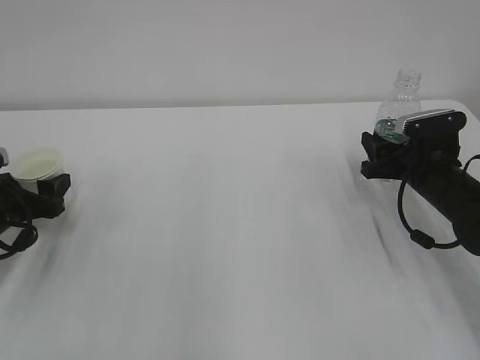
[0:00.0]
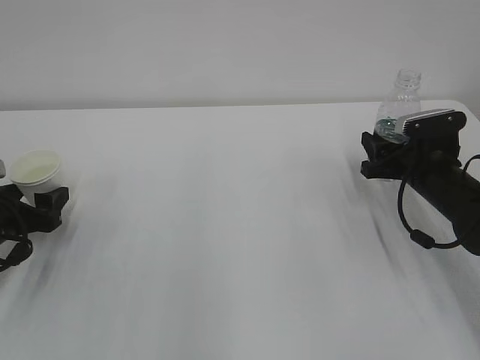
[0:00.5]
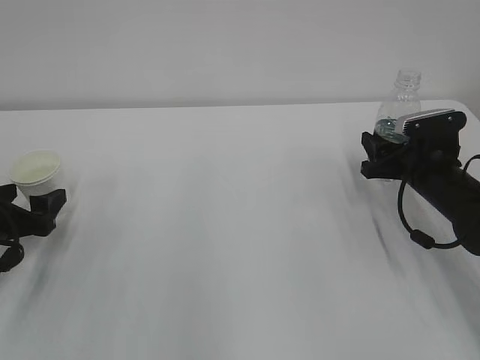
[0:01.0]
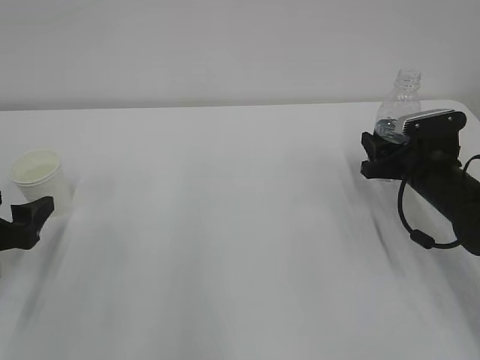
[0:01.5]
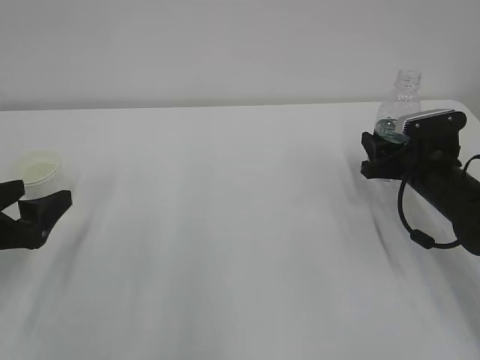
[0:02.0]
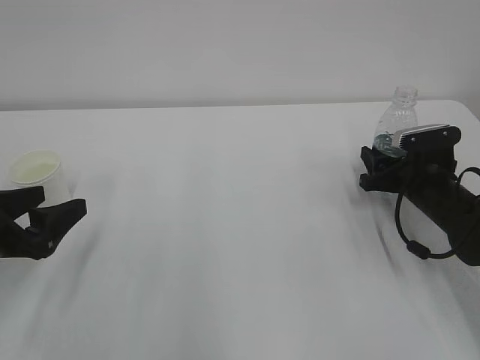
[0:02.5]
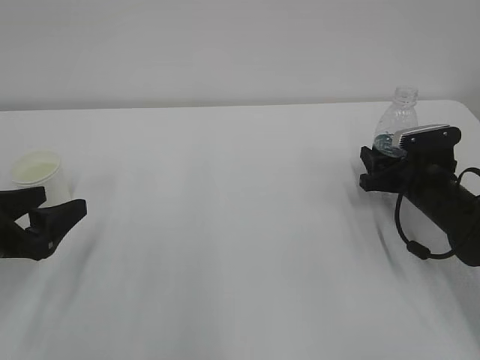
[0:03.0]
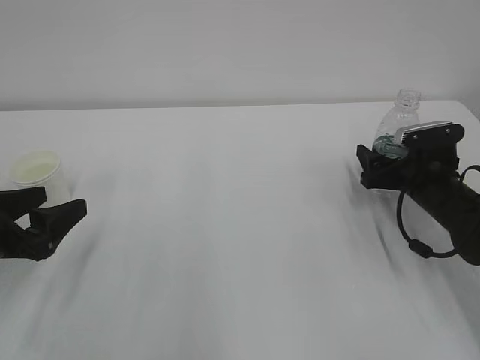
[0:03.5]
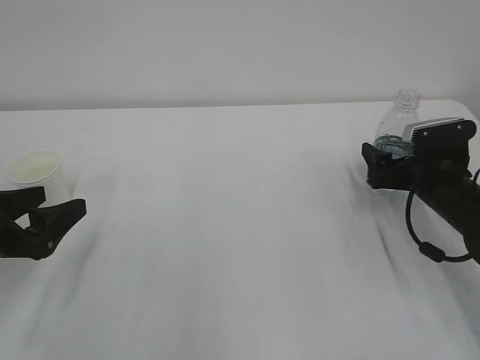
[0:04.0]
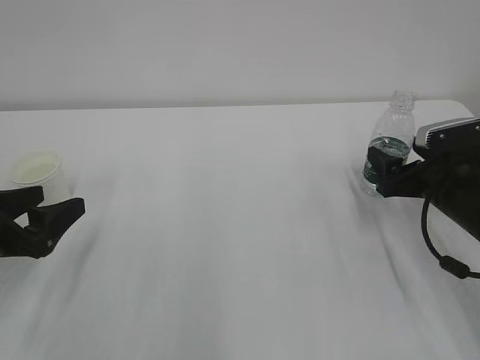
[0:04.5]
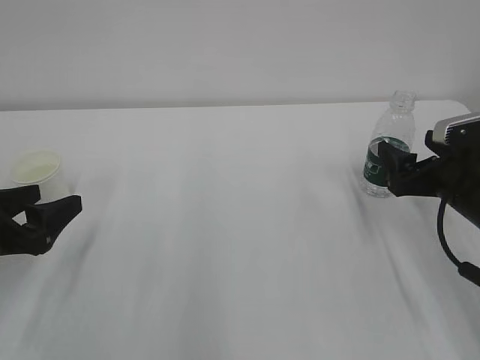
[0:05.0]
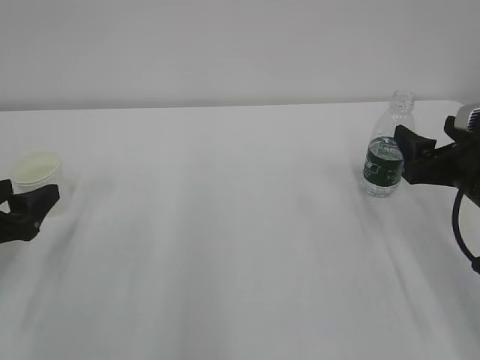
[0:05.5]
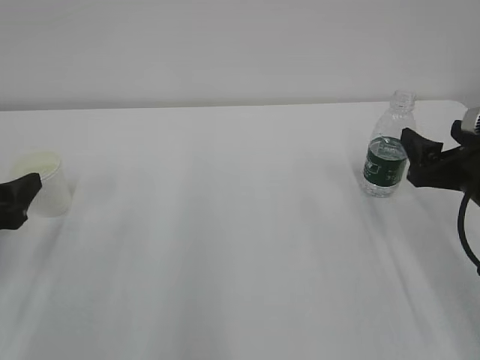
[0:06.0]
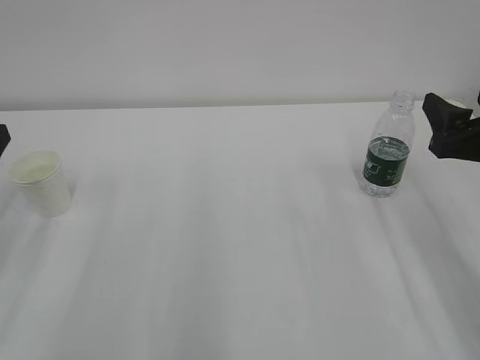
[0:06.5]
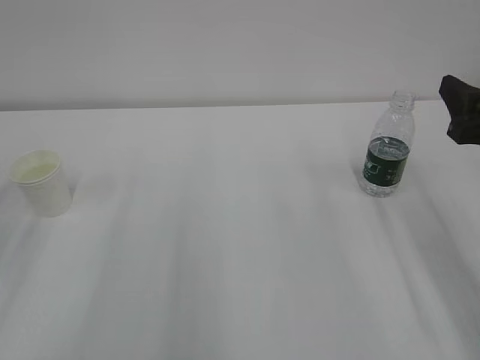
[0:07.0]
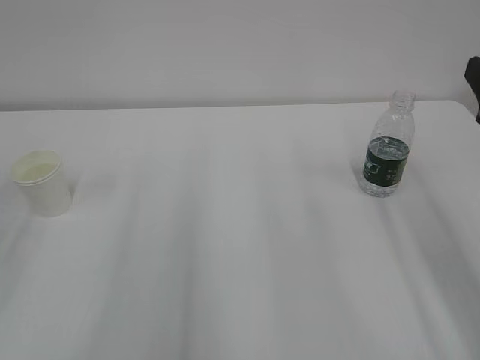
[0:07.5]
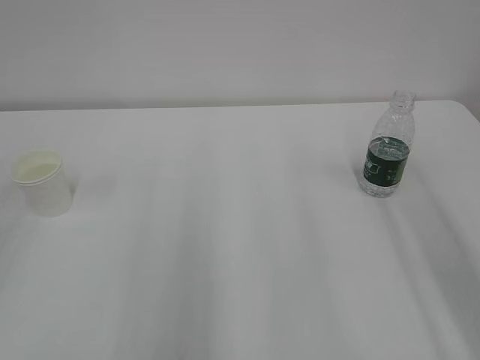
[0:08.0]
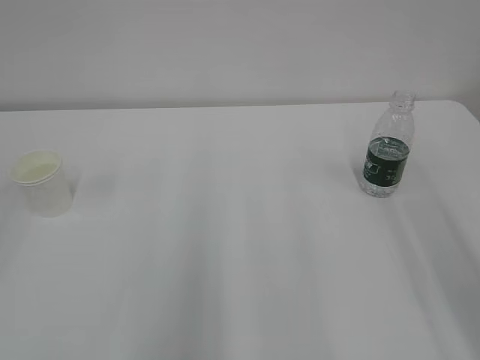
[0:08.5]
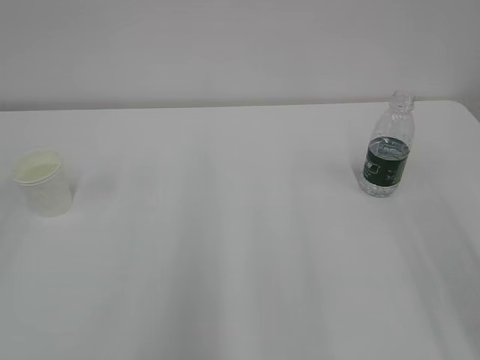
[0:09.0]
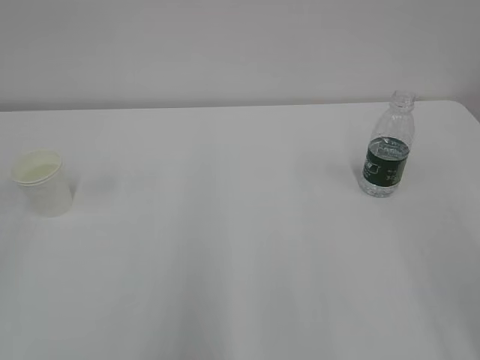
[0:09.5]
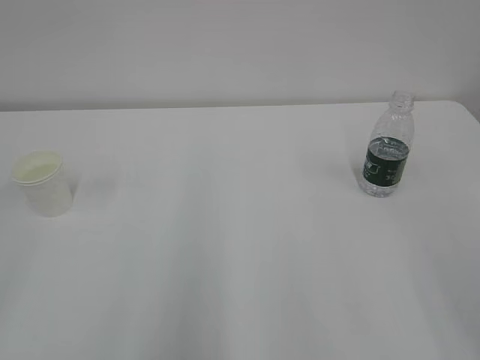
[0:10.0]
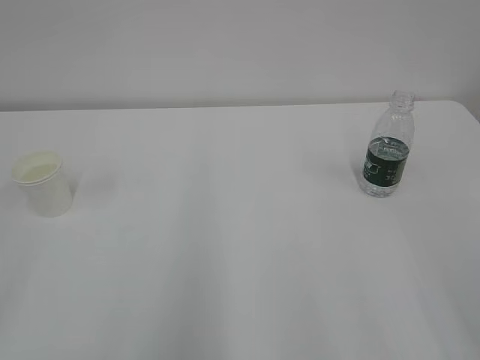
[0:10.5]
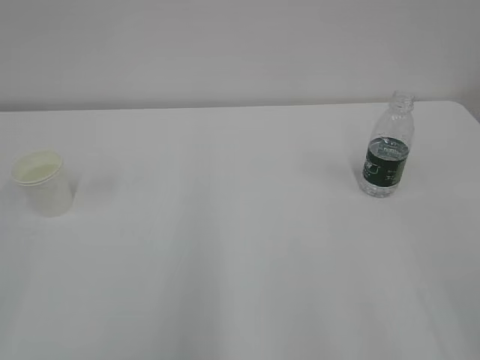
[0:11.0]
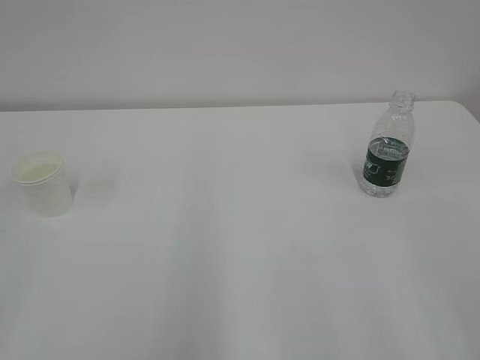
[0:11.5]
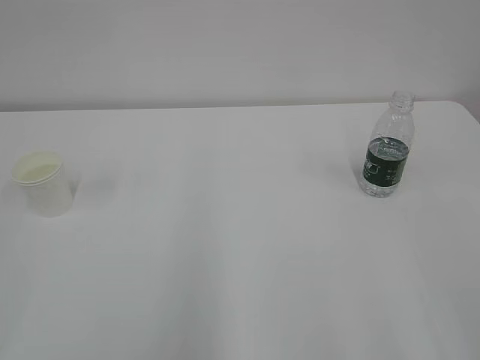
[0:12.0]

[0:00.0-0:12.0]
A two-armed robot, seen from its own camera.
0:00.0 to 0:02.0: The left gripper heads backward and upward, covering some 10 cm.
0:02.0 to 0:04.0: The right gripper opens its fingers.
0:04.0 to 0:06.0: The right gripper goes approximately 10 cm backward and upward.
0:06.0 to 0:08.0: Both grippers travel together upward and backward, roughly 20 cm.

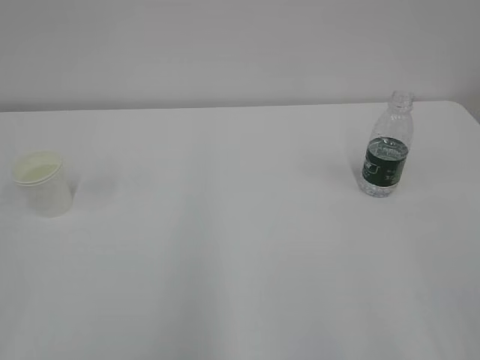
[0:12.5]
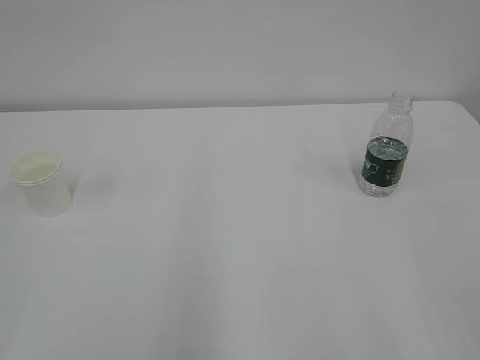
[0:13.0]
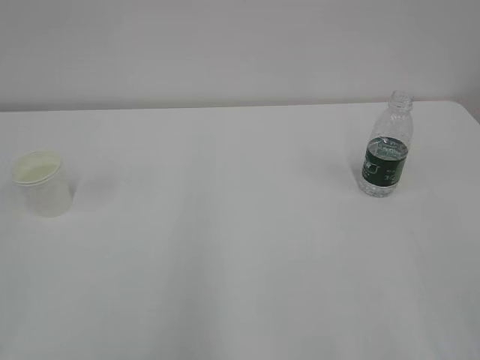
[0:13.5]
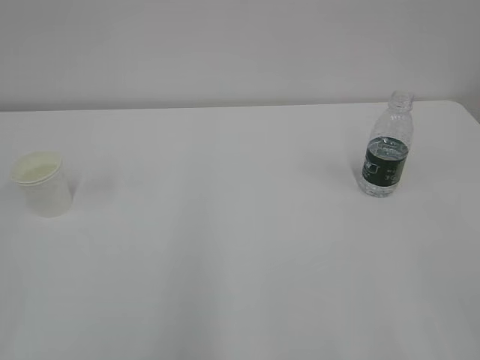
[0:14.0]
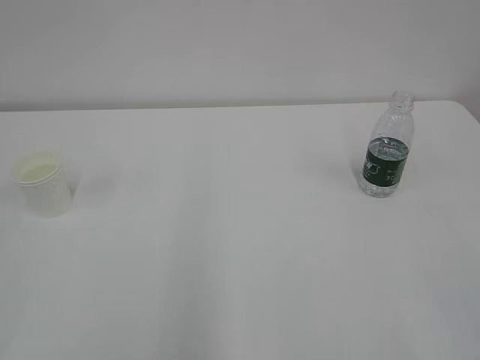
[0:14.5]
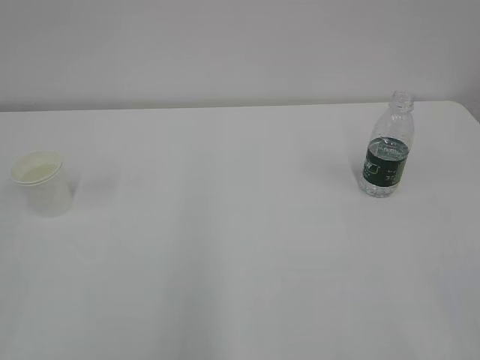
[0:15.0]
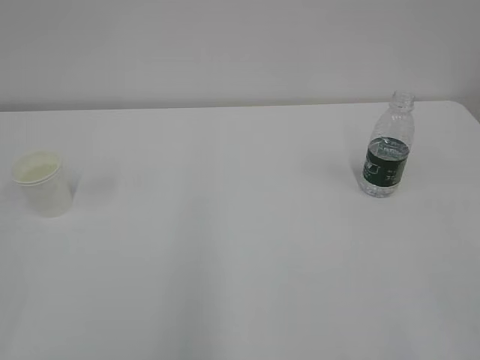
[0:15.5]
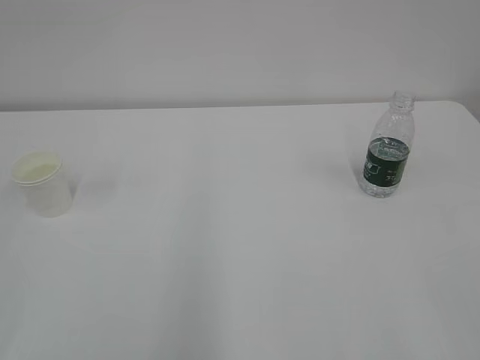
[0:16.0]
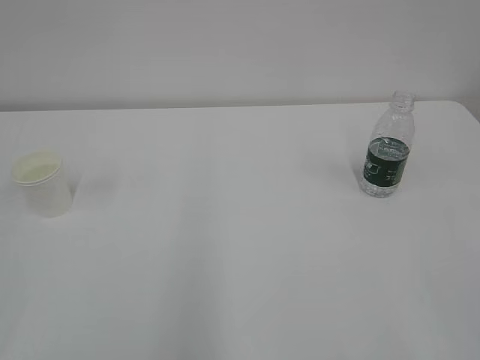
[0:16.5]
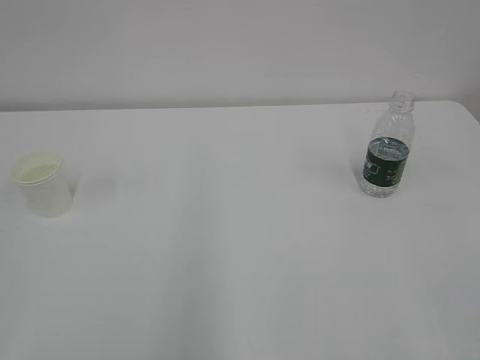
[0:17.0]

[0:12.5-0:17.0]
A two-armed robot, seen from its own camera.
0:14.5 to 0:17.0: Neither gripper changes place.
